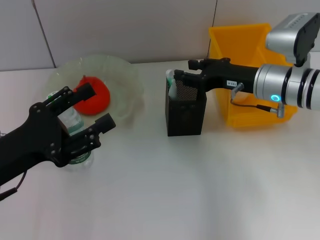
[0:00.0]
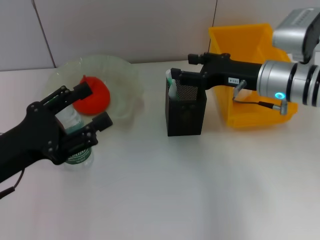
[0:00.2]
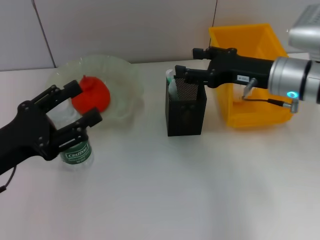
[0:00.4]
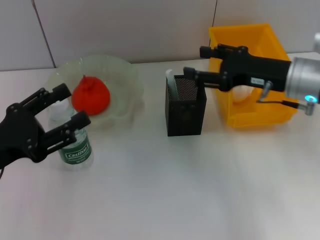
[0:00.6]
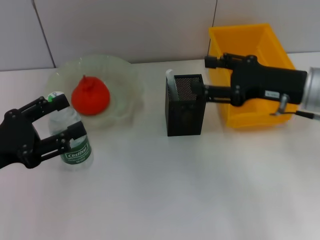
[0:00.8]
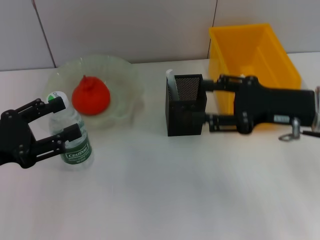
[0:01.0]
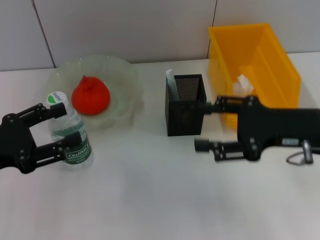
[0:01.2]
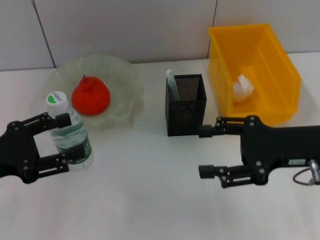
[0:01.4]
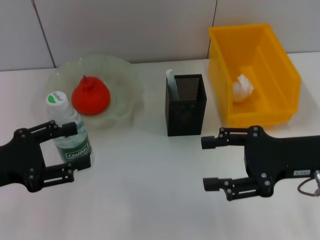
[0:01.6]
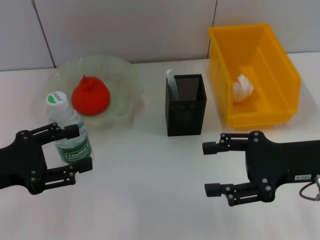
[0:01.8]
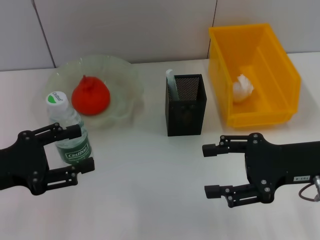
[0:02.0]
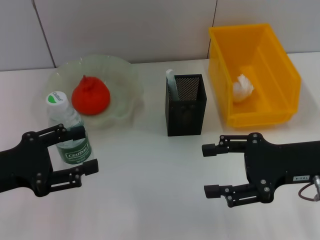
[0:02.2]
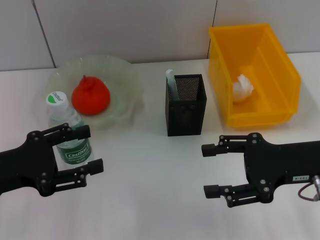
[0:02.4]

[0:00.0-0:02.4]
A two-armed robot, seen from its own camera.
0:00.0 to 0:01.2: The left gripper heads to the left, covering about 5 cm; the right gripper shifts roughly 10 cm backward, and opens its fingers.
0:01.2 to 0:02.4: The grippers make only small movements.

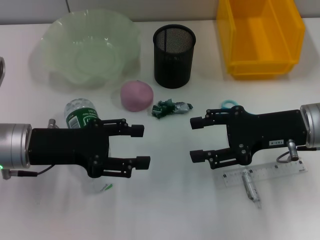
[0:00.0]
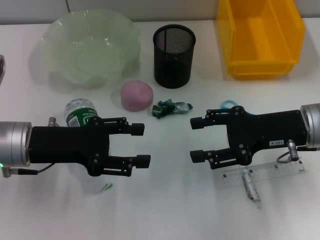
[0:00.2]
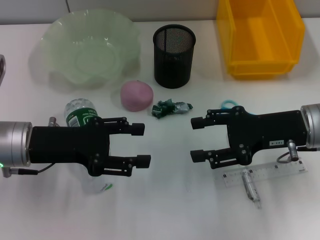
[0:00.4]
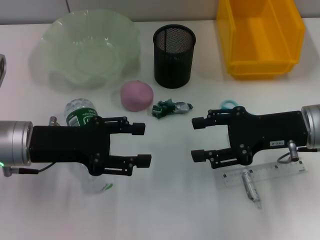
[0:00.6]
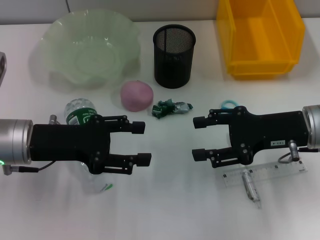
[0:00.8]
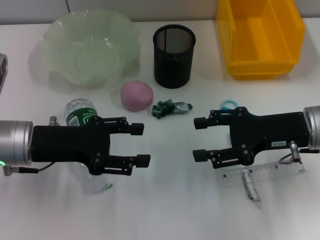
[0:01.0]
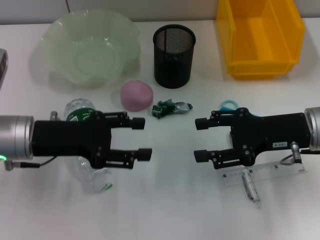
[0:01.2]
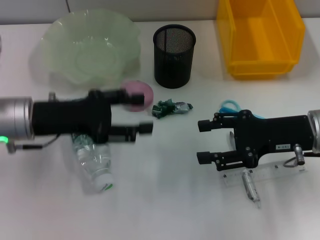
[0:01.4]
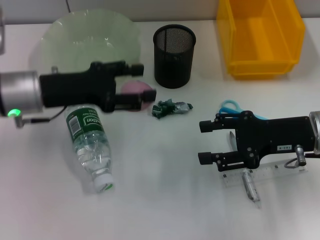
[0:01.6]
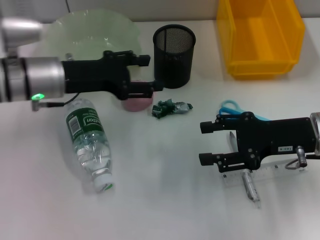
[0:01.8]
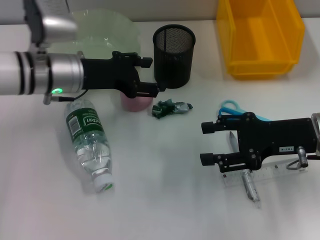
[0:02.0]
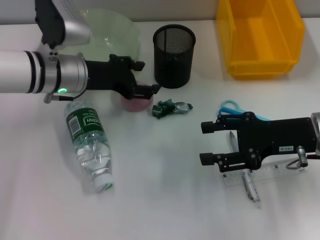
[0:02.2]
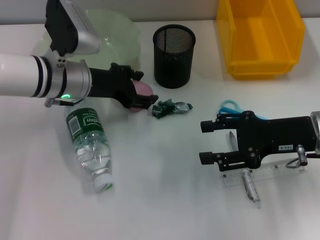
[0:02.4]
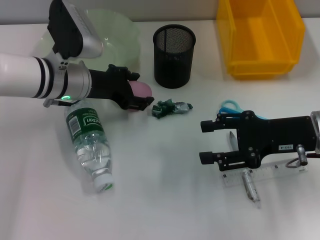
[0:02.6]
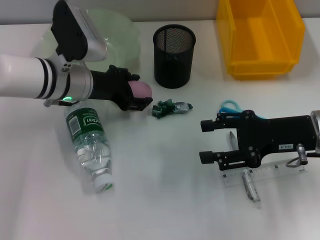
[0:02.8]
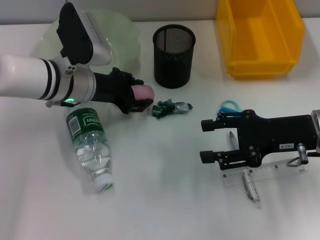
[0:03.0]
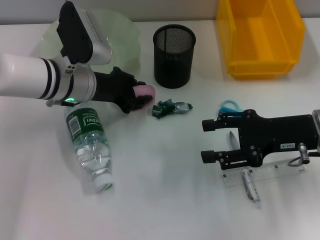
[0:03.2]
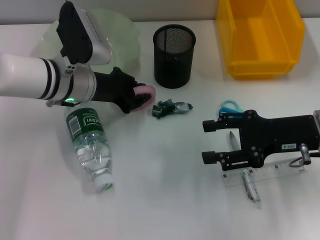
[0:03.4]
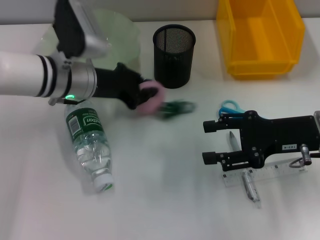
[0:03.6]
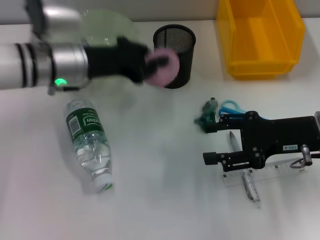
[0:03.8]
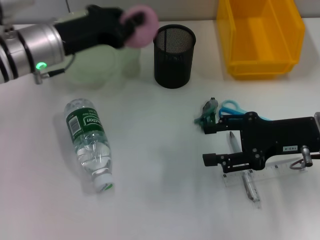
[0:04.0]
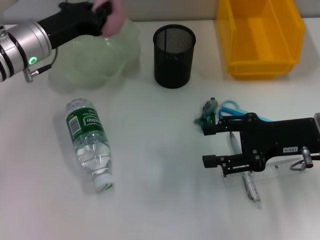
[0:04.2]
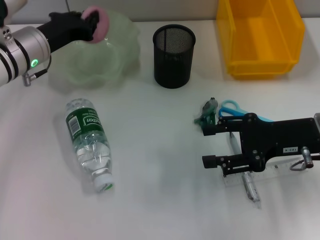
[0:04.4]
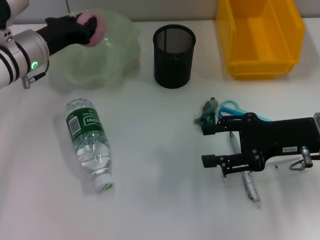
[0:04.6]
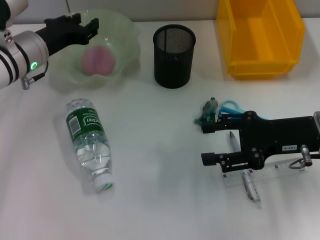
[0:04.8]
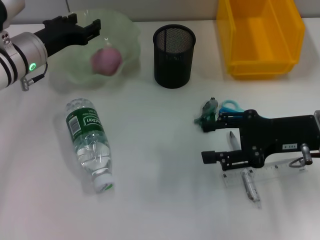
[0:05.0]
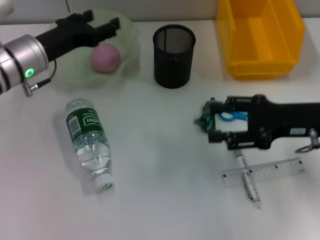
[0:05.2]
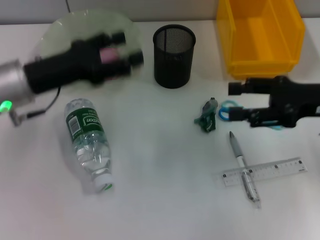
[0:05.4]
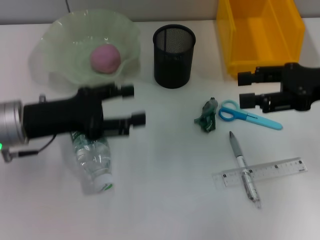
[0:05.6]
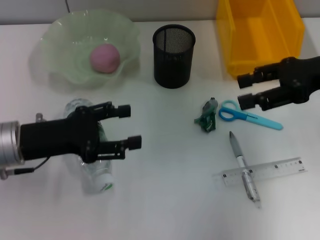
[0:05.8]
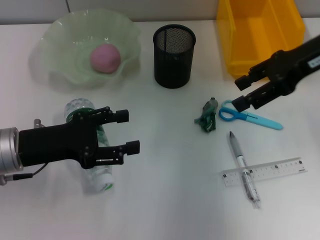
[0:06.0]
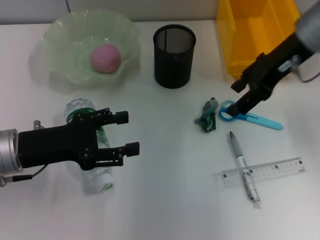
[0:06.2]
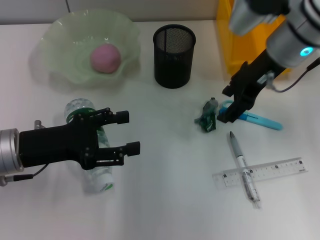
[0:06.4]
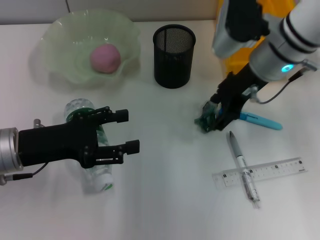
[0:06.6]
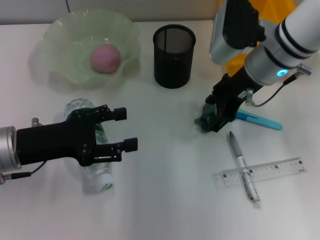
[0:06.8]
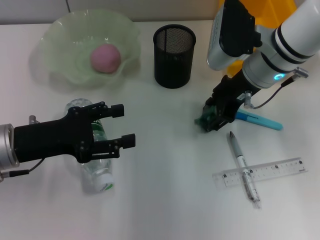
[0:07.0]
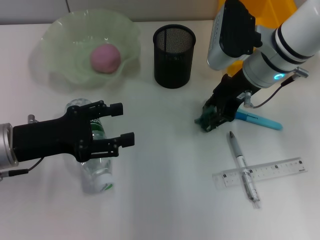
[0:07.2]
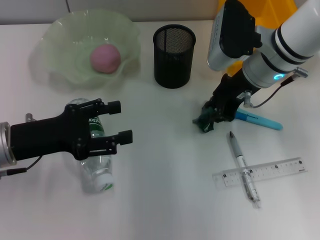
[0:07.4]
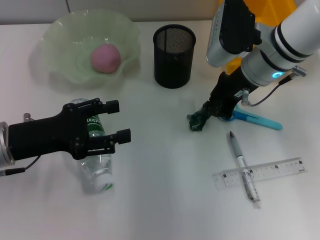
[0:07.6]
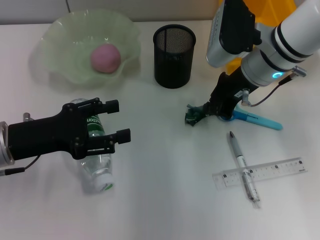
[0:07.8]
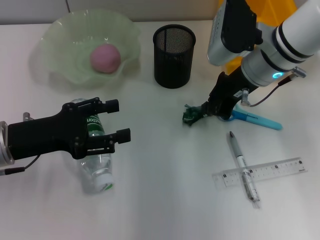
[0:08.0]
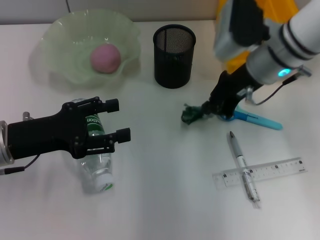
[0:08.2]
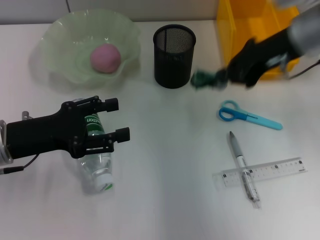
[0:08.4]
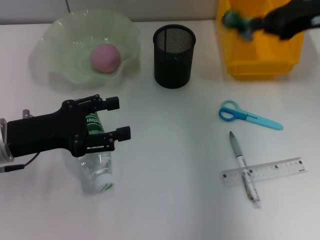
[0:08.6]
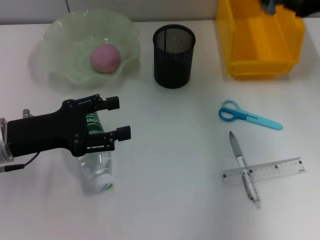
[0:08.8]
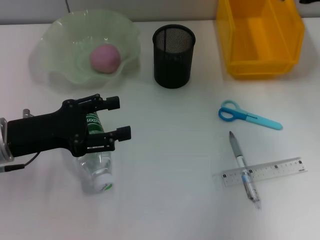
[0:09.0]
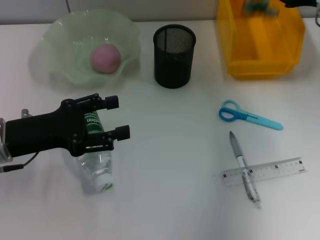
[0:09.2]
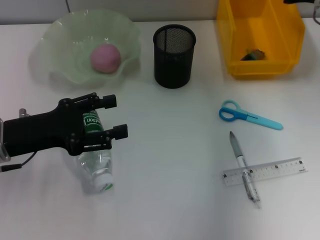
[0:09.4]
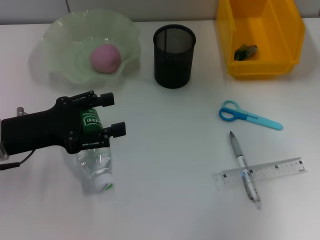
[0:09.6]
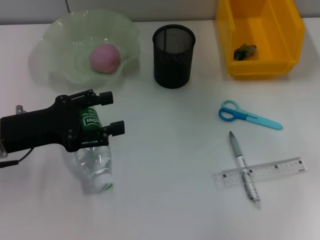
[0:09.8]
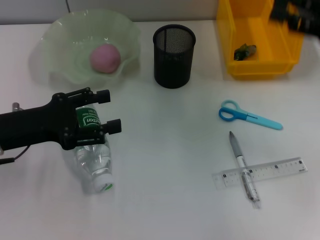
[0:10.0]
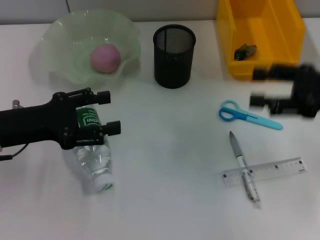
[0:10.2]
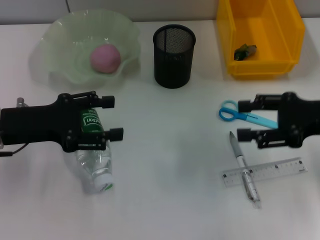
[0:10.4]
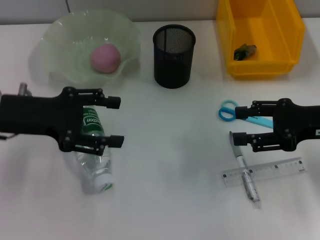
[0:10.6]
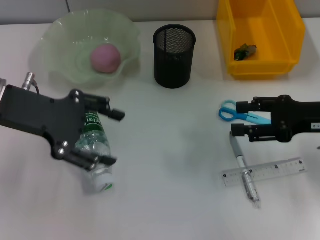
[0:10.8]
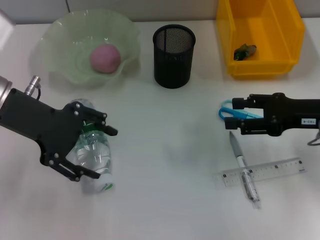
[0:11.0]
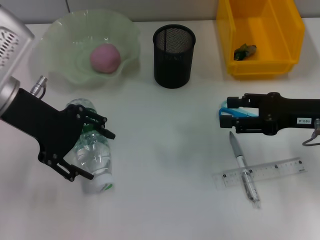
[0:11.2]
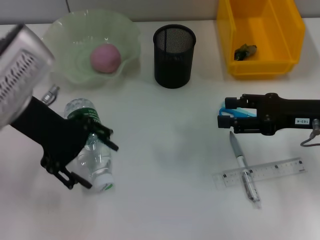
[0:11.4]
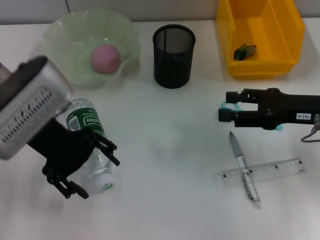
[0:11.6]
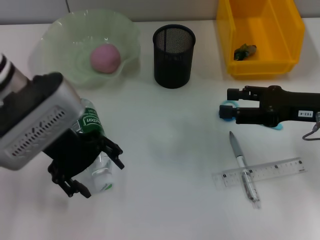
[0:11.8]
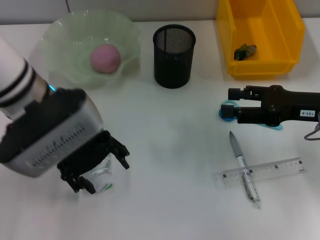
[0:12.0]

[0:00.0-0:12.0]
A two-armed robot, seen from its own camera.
Step, 0:00.0 to 0:03.0: Grab the peach with the left hand.
Step, 0:03.2 to 0:05.2: Place the peach into the fruit bowl with the left hand.
Step, 0:05.4 to 0:07.6: Grab the plastic with the right hand.
Step, 0:07.8 to 0:09.8: Place the plastic into the trash can with the right hand.
0:00.0 to 0:01.6: The left gripper shifts about 5 cm forward.
0:01.6 to 0:03.0: The left gripper travels to the right and forward by about 10 cm.
0:03.0 to 0:04.4: The left gripper heads to the left, covering about 5 cm, and closes its fingers.
0:04.4 to 0:06.0: The right gripper is displaced upward and forward by some 15 cm. Meanwhile the left gripper is displaced backward by about 15 cm, and opens its fingers.
0:06.0 to 0:07.6: The right gripper moves to the left and downward, some 10 cm, and closes up.
0:07.6 to 0:09.0: The right gripper heads to the right, covering roughly 15 cm.
0:09.0 to 0:10.4: The right gripper shifts approximately 15 cm backward and downward, and opens.
0:10.4 to 0:12.0: The left gripper is displaced to the right and upward by roughly 15 cm.

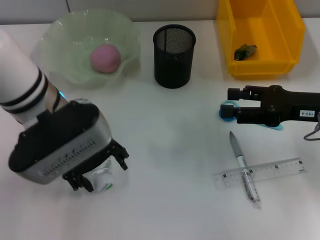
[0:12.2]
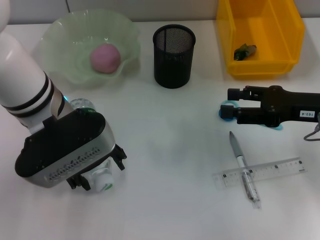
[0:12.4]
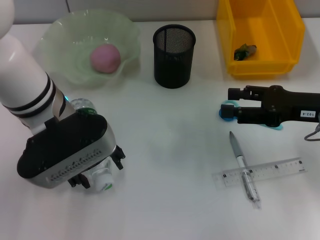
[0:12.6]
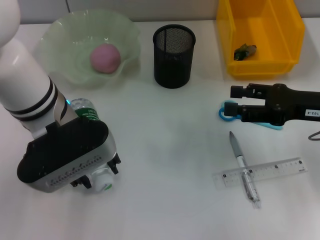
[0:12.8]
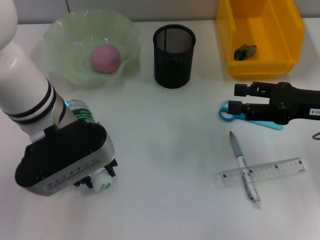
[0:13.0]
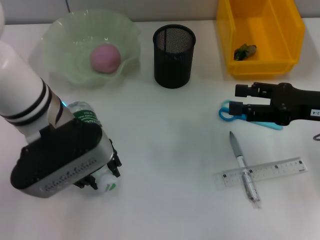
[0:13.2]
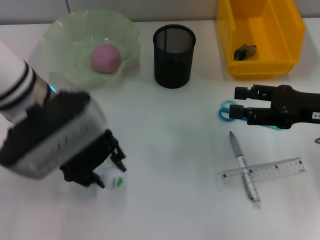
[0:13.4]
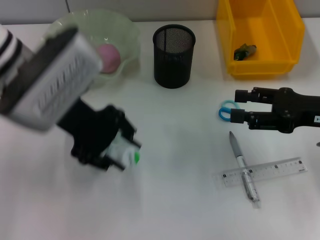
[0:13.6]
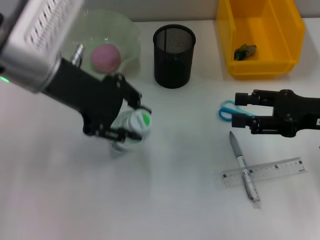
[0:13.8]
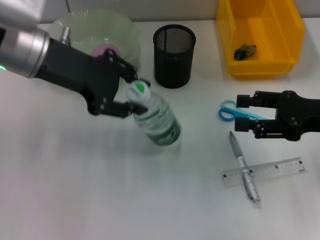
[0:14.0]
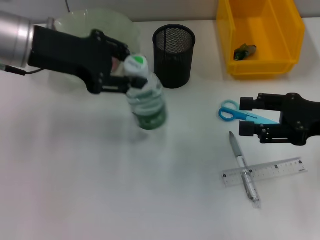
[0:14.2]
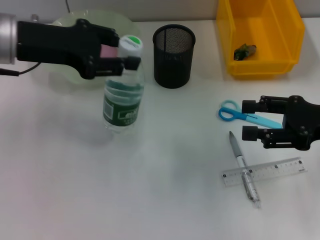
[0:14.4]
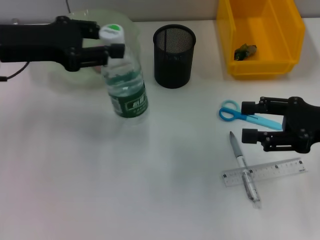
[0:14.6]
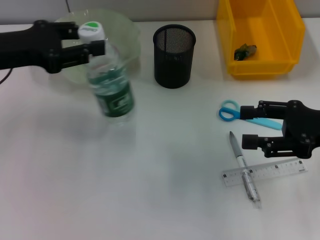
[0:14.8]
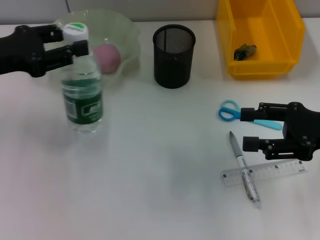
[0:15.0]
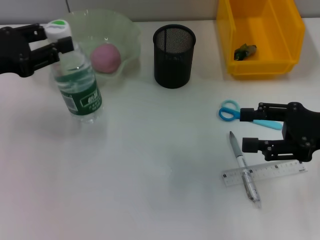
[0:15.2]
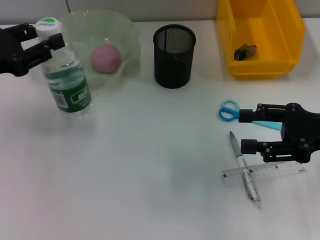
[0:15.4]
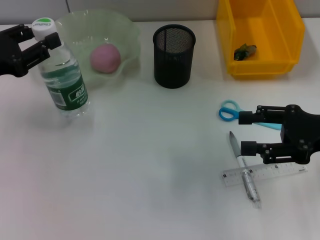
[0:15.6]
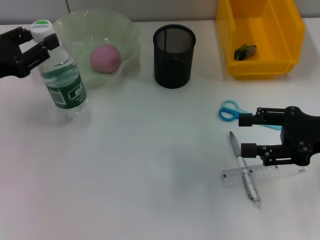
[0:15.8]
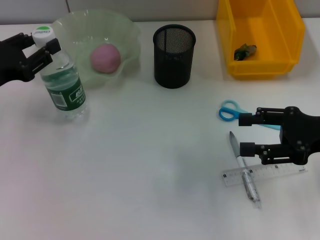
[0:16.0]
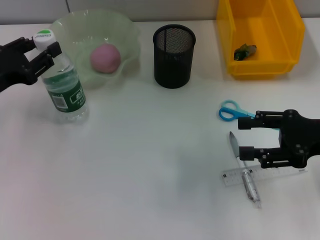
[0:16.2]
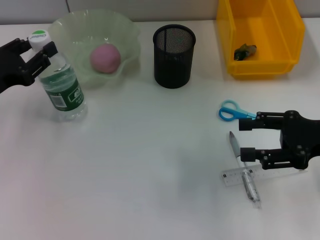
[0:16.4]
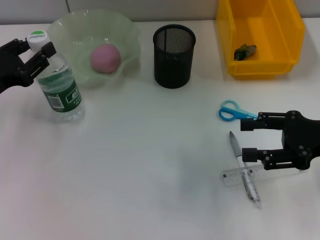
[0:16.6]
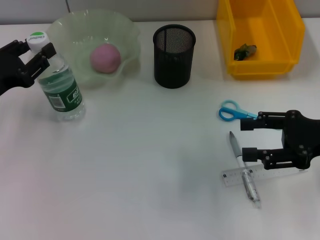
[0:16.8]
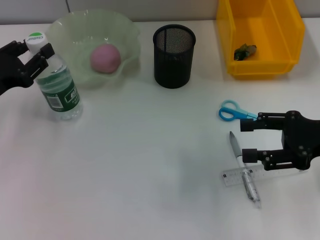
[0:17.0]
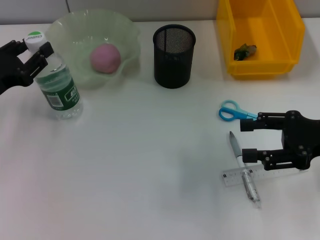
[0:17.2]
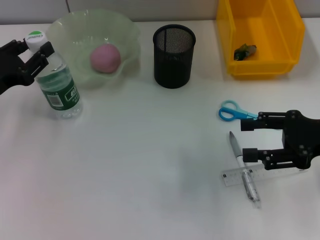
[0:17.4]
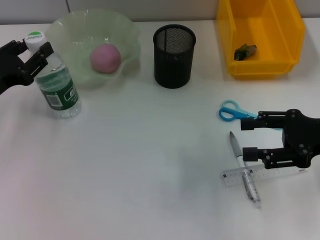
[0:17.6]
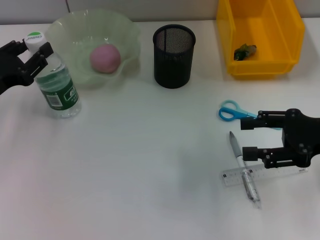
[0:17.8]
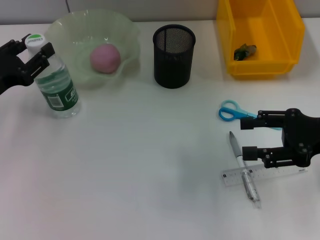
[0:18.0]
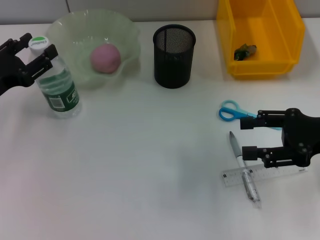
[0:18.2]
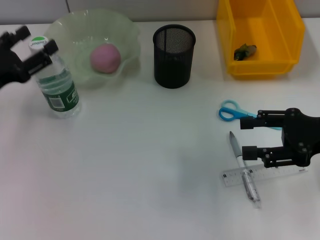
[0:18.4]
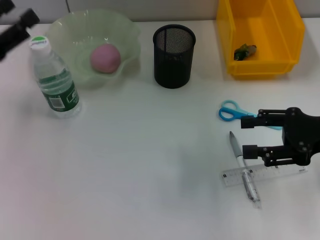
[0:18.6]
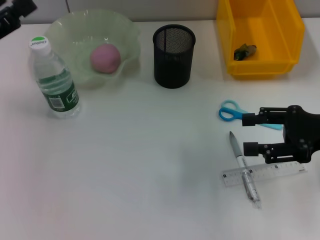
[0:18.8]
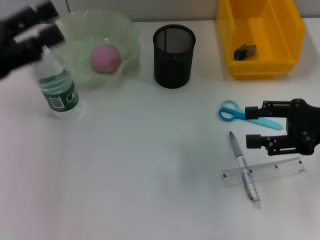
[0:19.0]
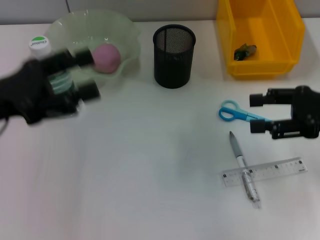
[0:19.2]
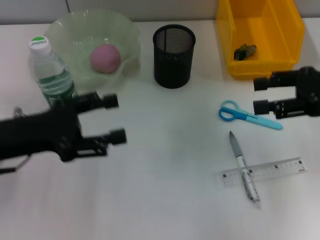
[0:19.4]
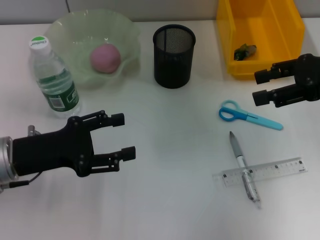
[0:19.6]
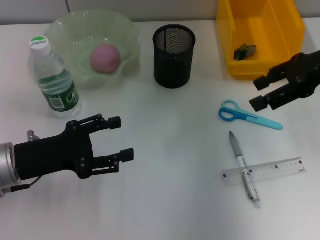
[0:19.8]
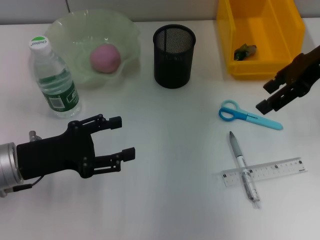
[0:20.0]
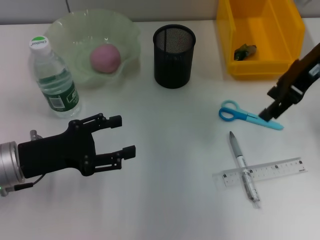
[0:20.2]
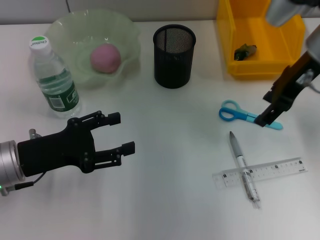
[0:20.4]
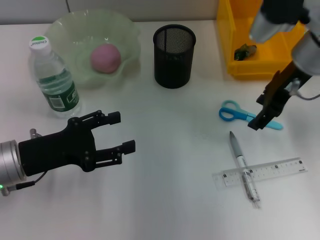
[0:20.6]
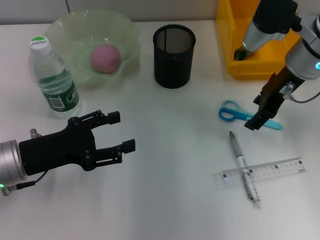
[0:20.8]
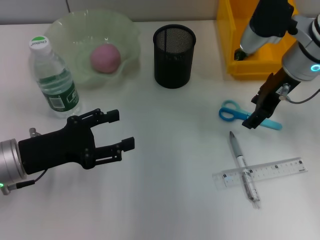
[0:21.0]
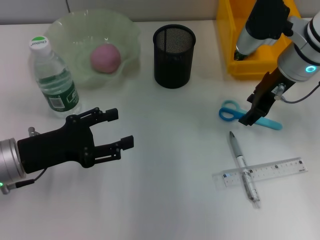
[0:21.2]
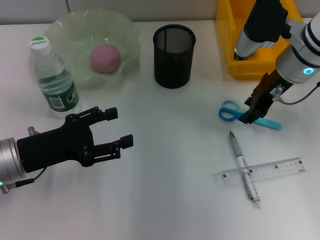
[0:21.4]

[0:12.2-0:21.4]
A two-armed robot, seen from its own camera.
Step, 0:13.2 to 0:18.0: Place the water bottle on the table with the left hand.
0:12.2 to 0:13.8: The left gripper goes about 5 cm upward, and closes.
0:13.8 to 0:15.2: The left gripper goes about 15 cm to the left and downward.
0:15.2 to 0:16.8: The left gripper shifts roughly 5 cm downward.
0:16.8 to 0:18.4: Both grippers stay put.
0:18.4 to 0:19.8: The left gripper heads to the right, covering some 5 cm, and goes upward and returns, some 5 cm each way, while the right gripper travels upward and forward by about 15 cm.
0:19.8 to 0:21.4: The right gripper moves to the left and downward, approximately 10 cm.
